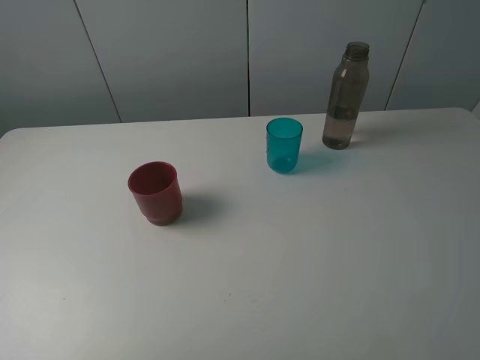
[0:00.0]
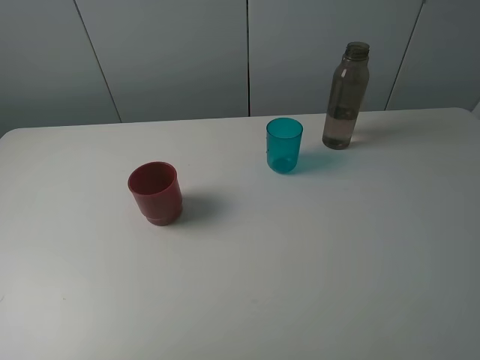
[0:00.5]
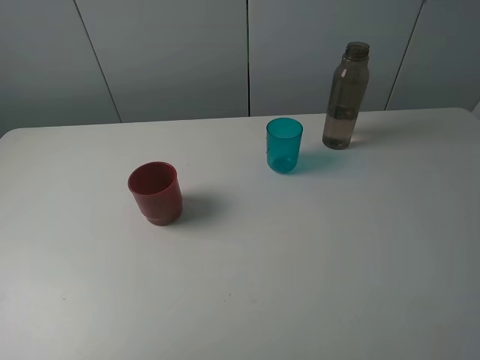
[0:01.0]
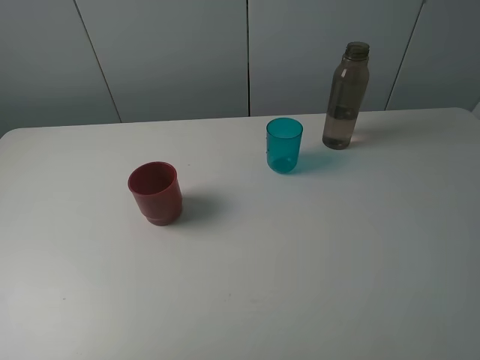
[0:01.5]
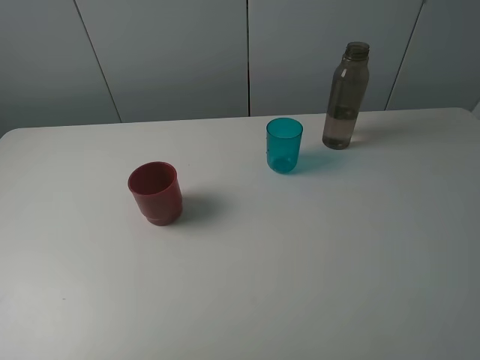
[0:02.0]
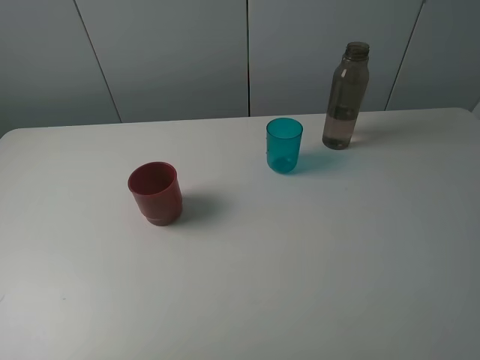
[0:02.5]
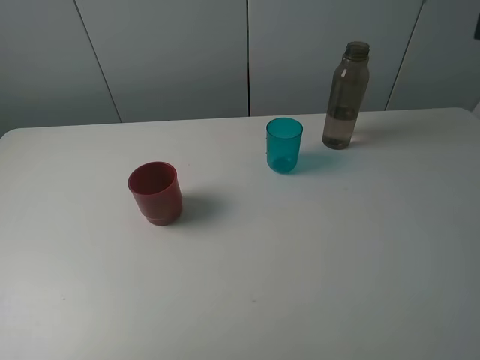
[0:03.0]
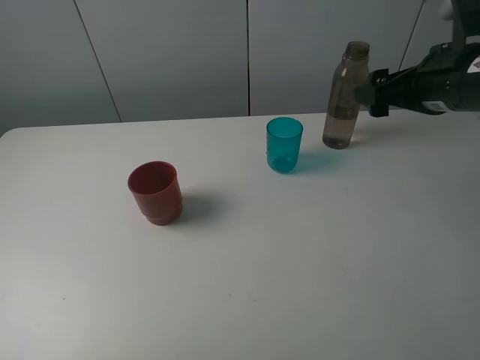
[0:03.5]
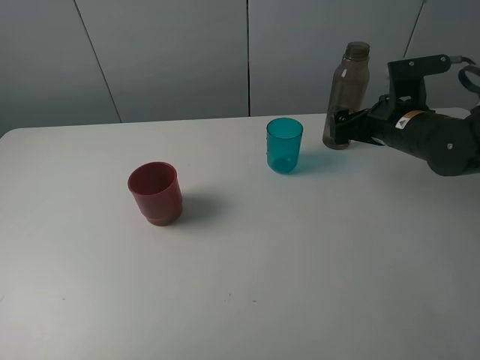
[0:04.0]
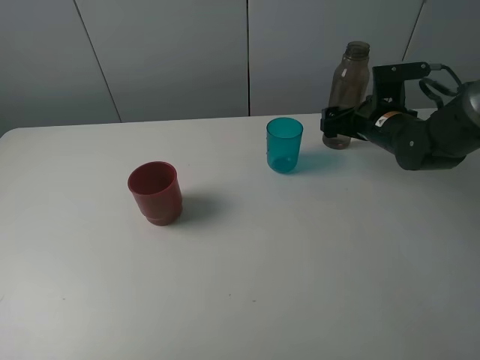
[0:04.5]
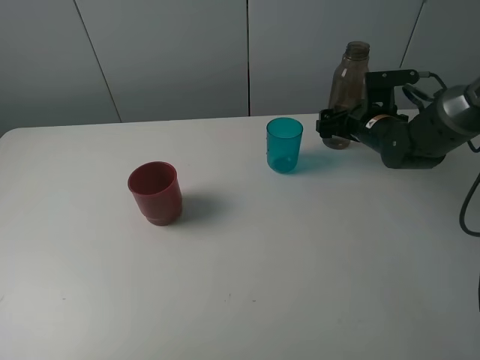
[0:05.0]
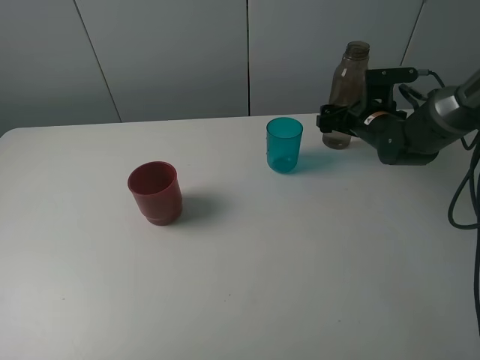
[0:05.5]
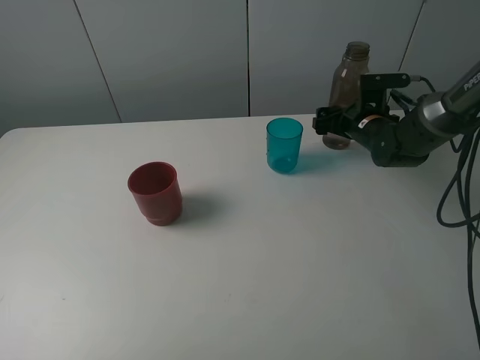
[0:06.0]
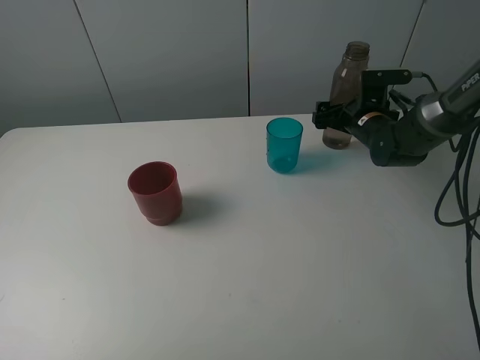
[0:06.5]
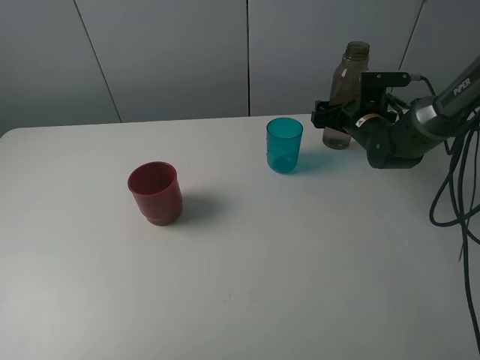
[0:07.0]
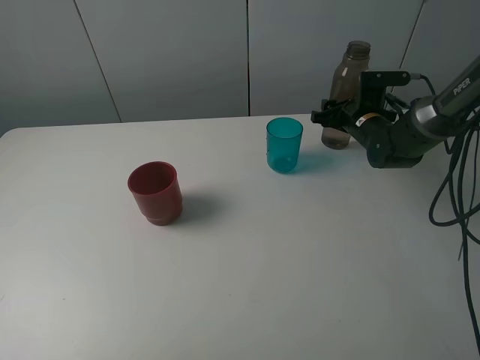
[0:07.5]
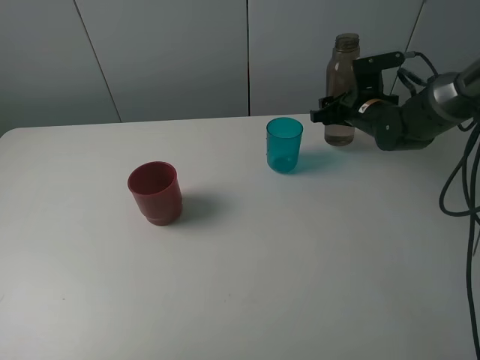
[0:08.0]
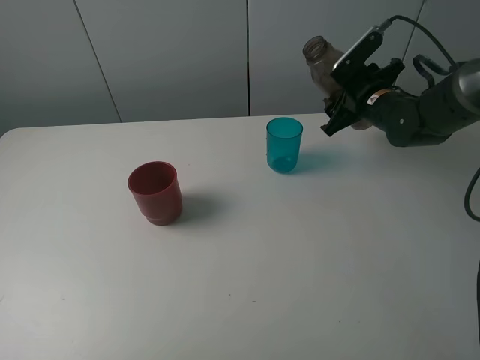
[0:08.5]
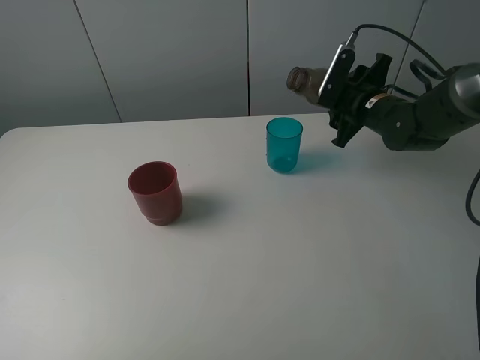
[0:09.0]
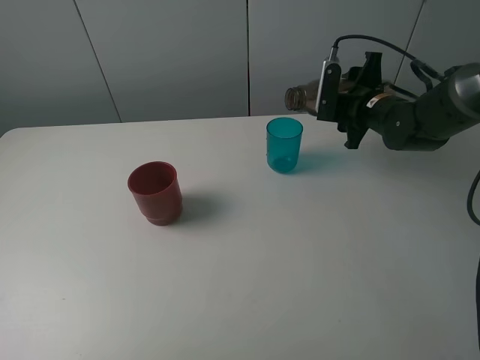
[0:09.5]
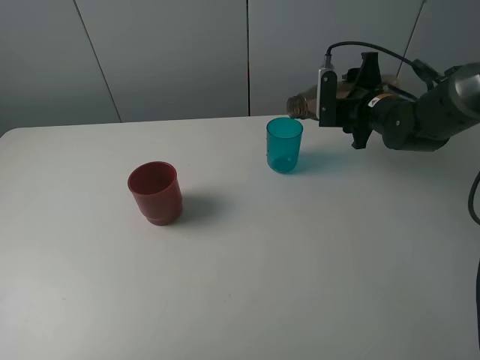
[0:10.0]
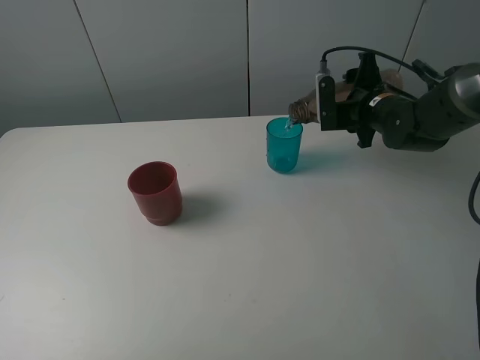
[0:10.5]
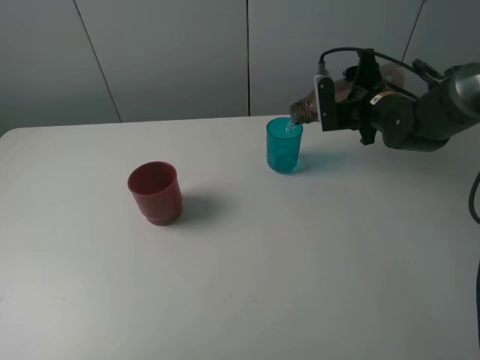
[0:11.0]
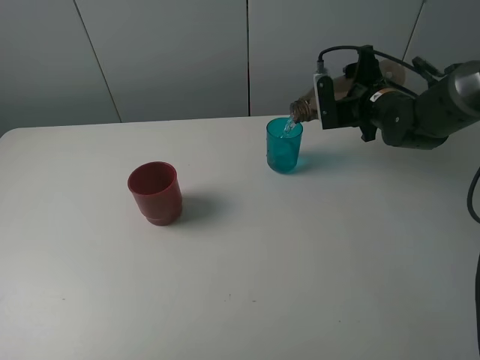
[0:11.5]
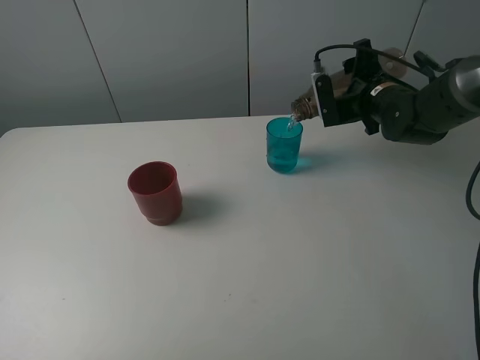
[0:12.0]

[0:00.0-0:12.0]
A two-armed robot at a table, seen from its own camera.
Task of the whole recording: pick up the bottle and pour water into the cup, then pick up the cup containing water and pour it into another cup.
Step, 0:00.0 to 0:07.5: Grasp the brown bottle with the right gripper.
0:00.0 to 0:02.0: Both grippers stay about where they are.
0:02.0 to 0:04.0: The right gripper heads forward and downward, covering some 35 cm.
0:04.0 to 0:06.0: The right gripper is displaced forward and downward by about 10 cm.
0:06.0 to 0:08.0: The right gripper closes.
0:10.0 to 0:12.0: The grippers move only a little.

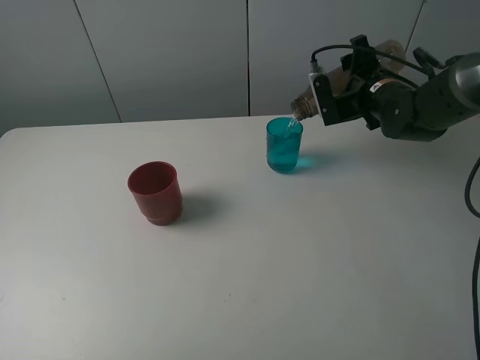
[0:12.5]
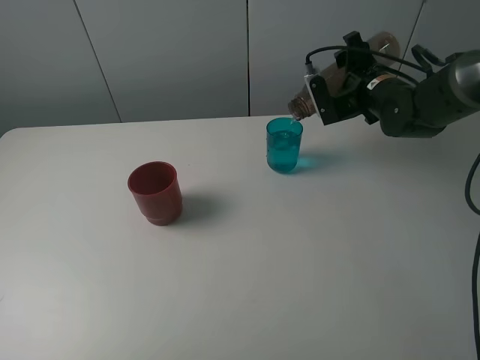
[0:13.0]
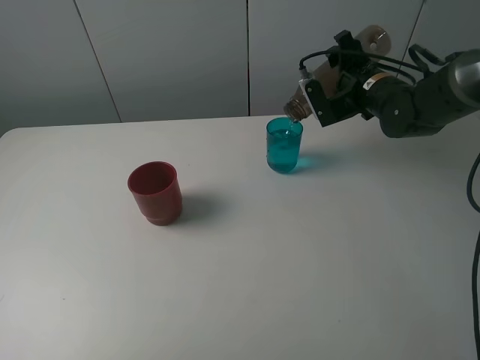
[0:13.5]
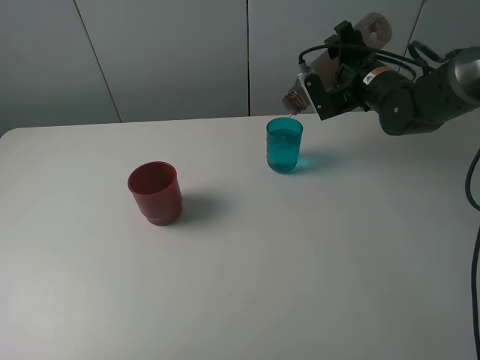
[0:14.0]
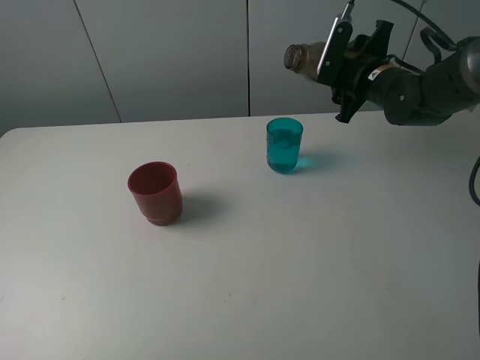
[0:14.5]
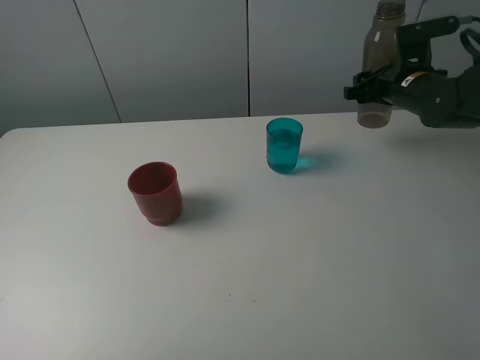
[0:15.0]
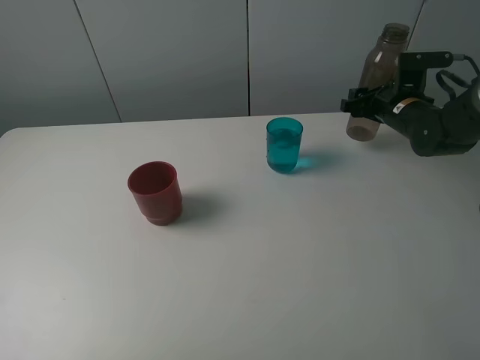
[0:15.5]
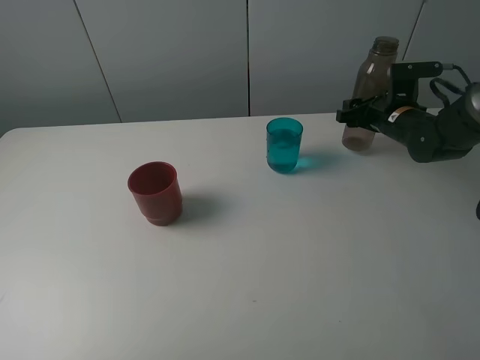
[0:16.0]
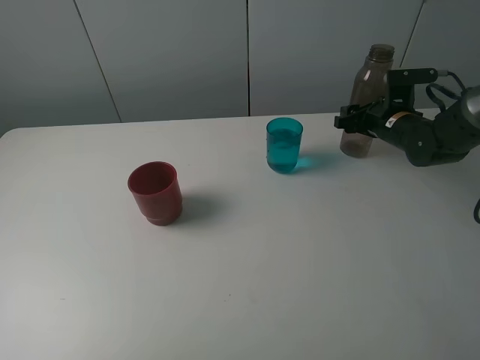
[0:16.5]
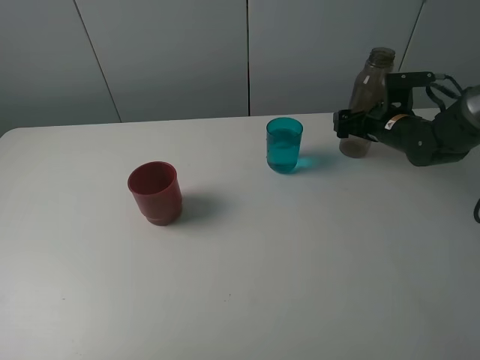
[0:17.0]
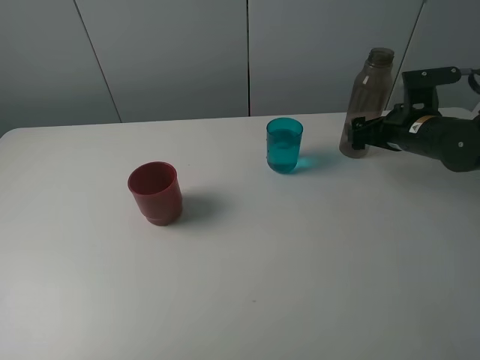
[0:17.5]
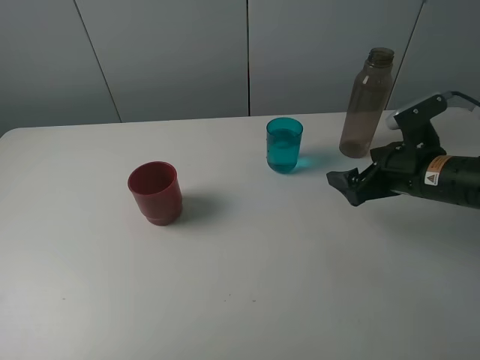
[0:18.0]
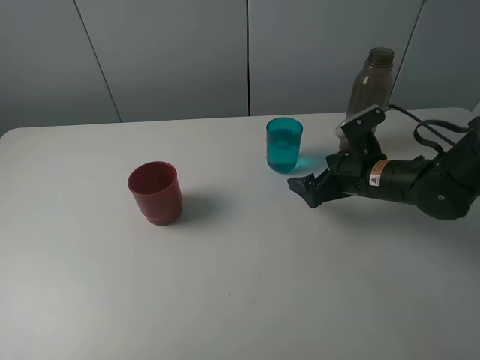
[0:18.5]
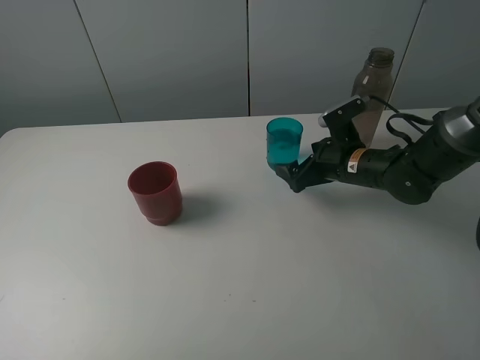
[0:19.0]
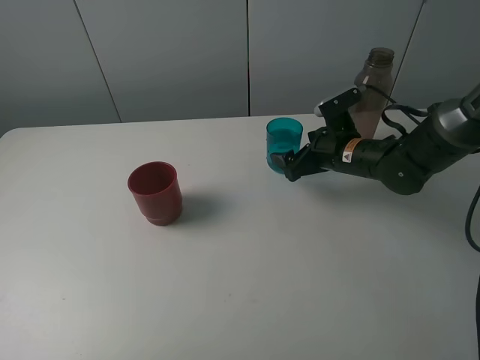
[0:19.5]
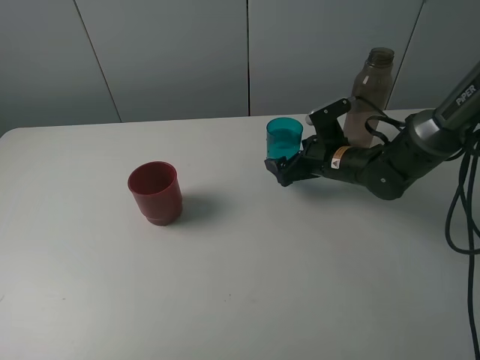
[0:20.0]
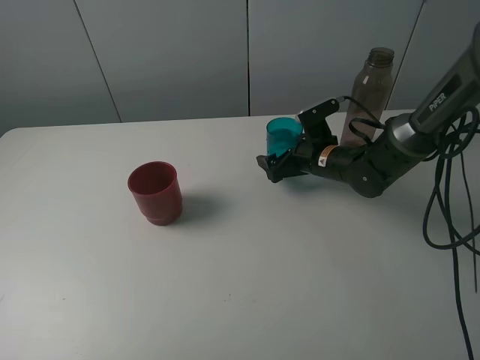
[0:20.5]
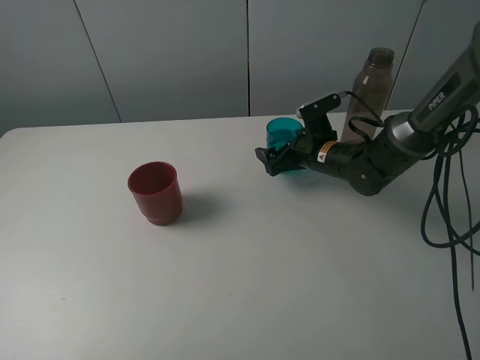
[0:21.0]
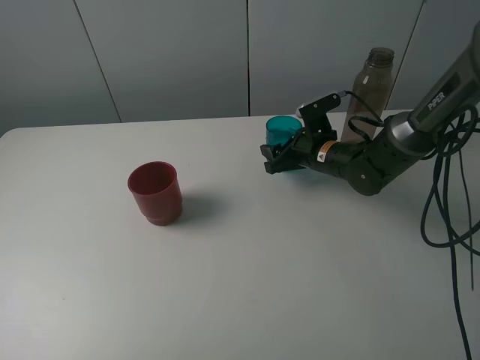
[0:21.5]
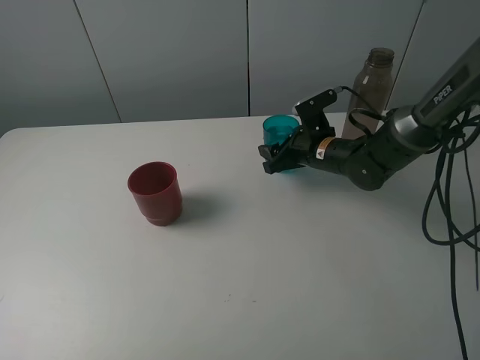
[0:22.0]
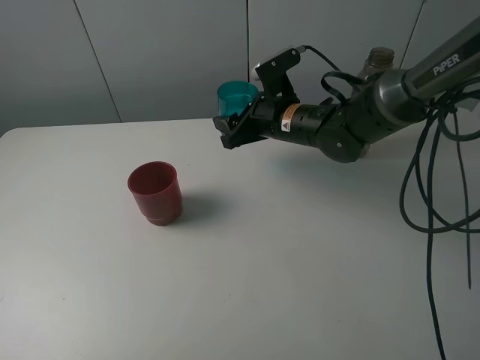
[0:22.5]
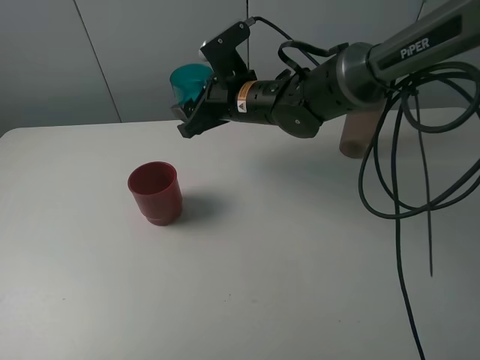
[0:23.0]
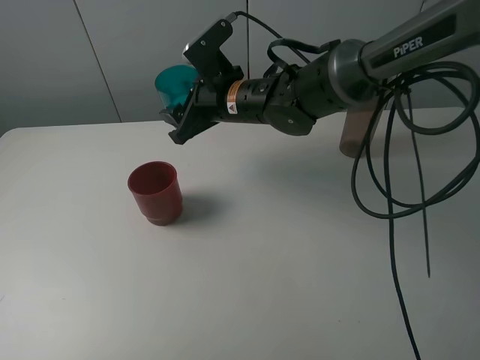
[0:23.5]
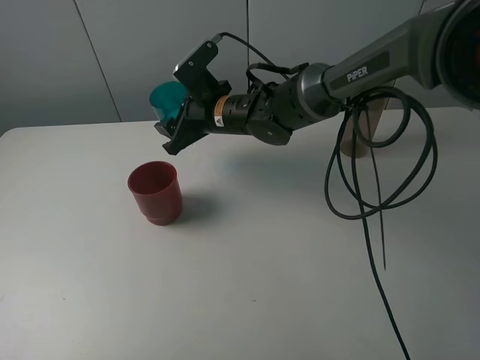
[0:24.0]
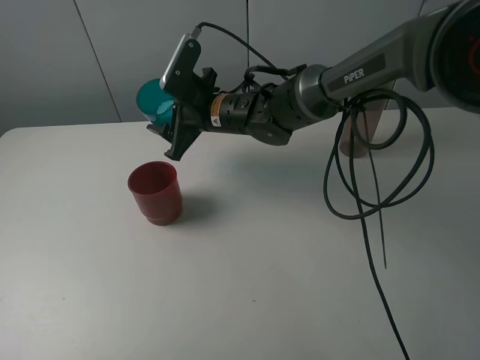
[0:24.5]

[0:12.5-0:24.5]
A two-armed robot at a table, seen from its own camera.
Task of the whole recording: pick up the bottle and pour water into the cup, then pick up the cup containing water and pour it into another cup.
Step, 0:14.5 to 0:17.0: Place the brown bottle with the right gripper.
Step, 0:17.5 to 0:21.5: Grasp the blue cup with the right gripper.
0:14.5 to 0:16.5: The right gripper is displaced downward and to the right by approximately 10 cm.
0:16.5 to 0:18.5: The right gripper heads backward and to the left, covering about 15 cm, and opens up.
0:18.5 to 0:20.5: The right gripper shifts roughly 5 cm forward.
0:20.5 to 0:22.5: The right gripper shifts about 10 cm upward and to the left, and closes its fingers.
0:22.5 to 0:24.5: The right gripper shifts roughly 10 cm to the left.

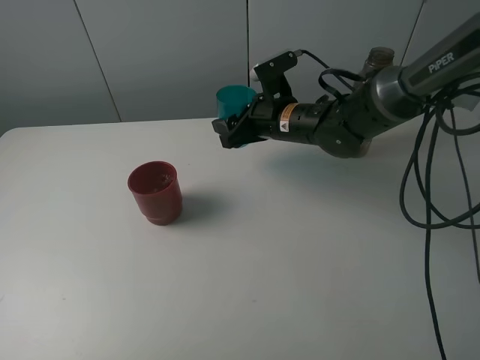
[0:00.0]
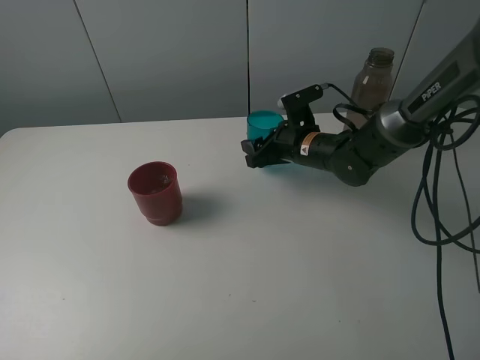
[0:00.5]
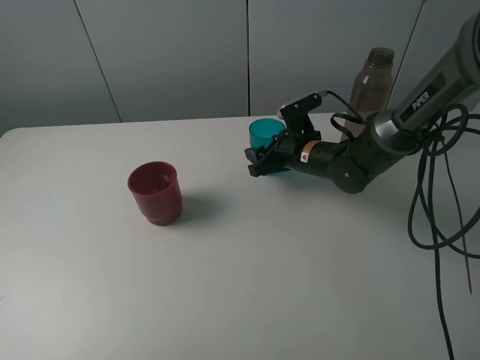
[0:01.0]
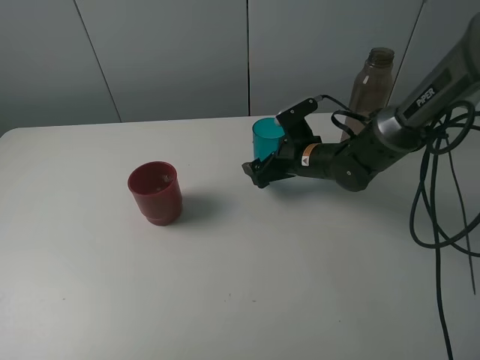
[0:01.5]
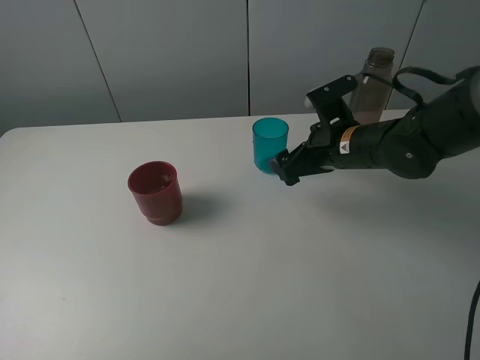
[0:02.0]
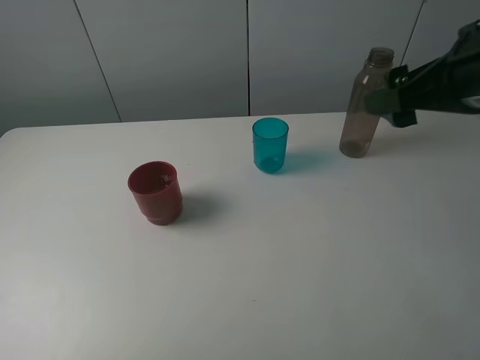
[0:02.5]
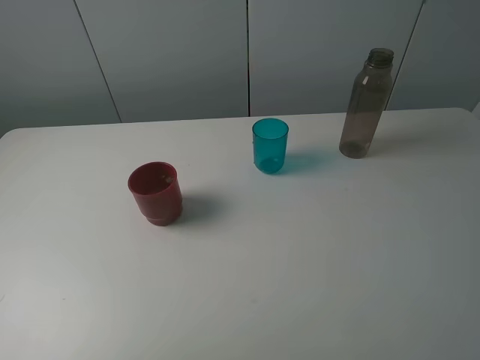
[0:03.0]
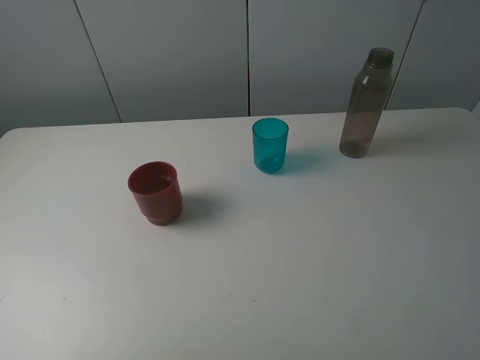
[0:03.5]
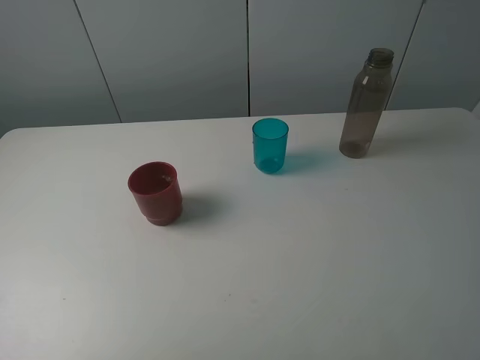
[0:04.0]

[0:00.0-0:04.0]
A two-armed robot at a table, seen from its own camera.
Task of the whole recording: pick up the bottle and pour water into the cup, then pick up the cup containing water and pour it into another cup.
0:00.0 to 0:02.0: The right gripper goes roughly 10 cm to the right and backward, travels downward and back again, roughly 5 cm each way, and opens.
0:02.0 to 0:04.0: The right gripper goes about 35 cm backward, upward and to the right.
